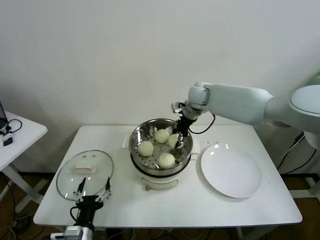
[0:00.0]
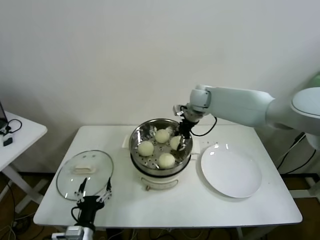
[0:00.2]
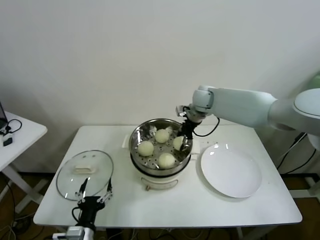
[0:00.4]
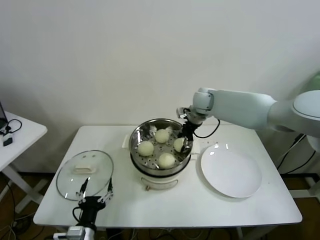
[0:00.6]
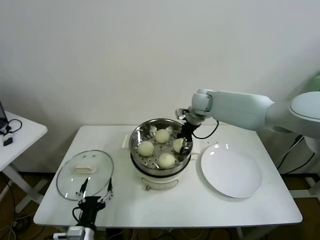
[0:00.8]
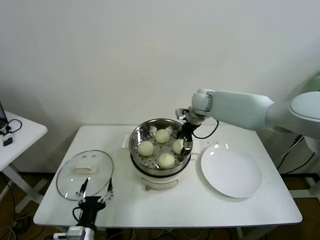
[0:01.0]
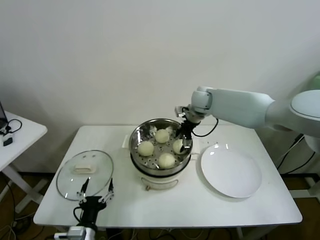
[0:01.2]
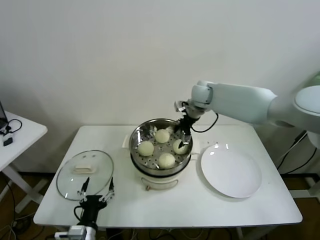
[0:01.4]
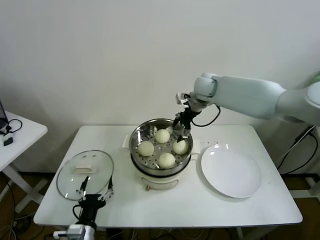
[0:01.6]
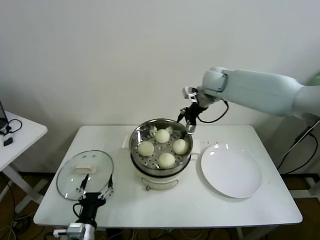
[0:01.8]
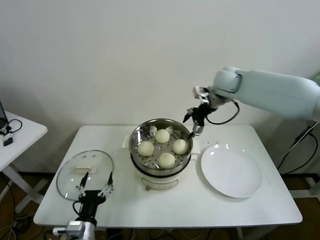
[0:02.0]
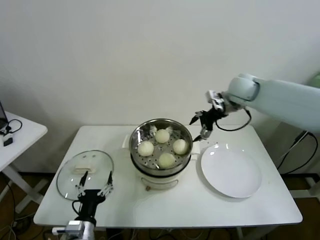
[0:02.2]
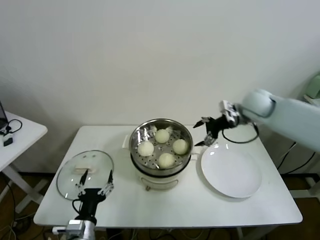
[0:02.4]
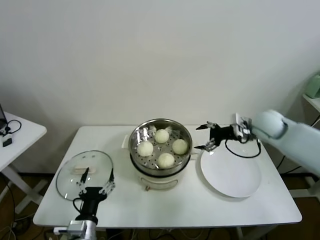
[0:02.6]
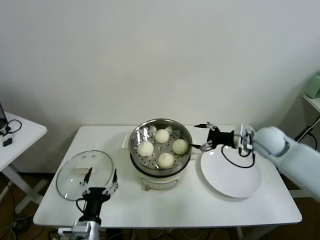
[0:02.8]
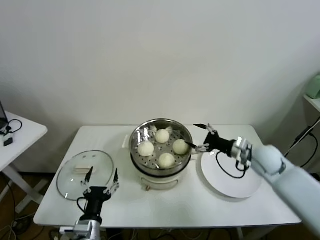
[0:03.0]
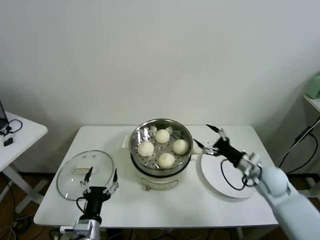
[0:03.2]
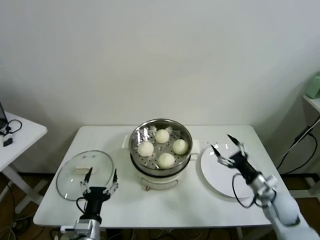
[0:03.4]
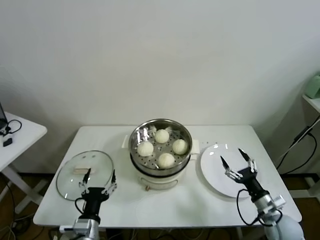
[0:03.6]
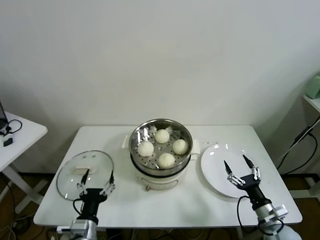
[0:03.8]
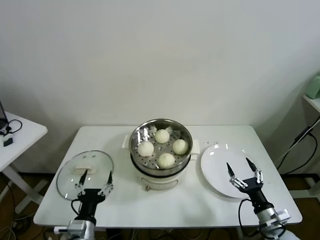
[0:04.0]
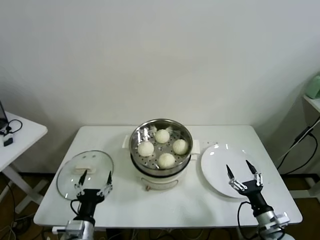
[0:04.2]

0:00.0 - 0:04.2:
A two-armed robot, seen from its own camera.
Task of the whole recording: take steamed baozi put them in steamer.
0:00.0 - 0:01.4: The right gripper opens up.
0:01.4 - 0:02.8: The right gripper is displaced to the right and backward by roughly 25 cm.
0:02.8 - 0:04.2: The right gripper travels backward and downward by approximately 35 cm.
